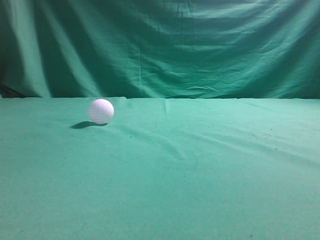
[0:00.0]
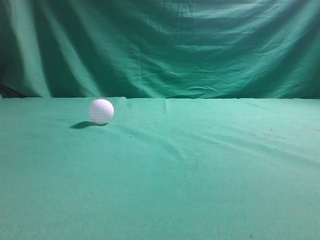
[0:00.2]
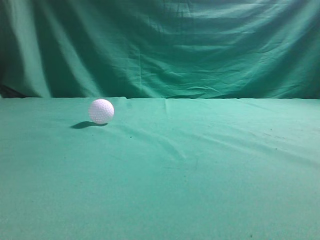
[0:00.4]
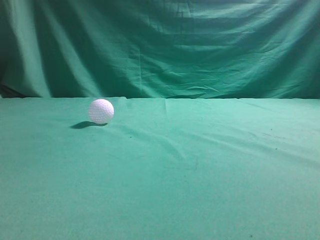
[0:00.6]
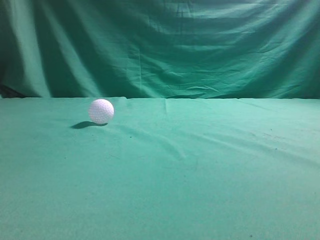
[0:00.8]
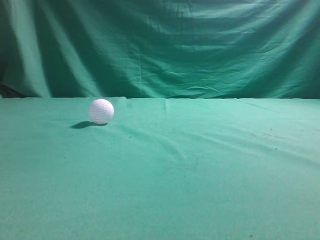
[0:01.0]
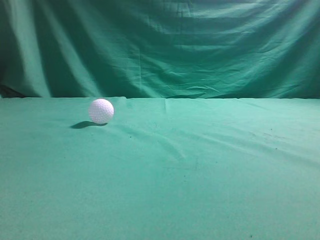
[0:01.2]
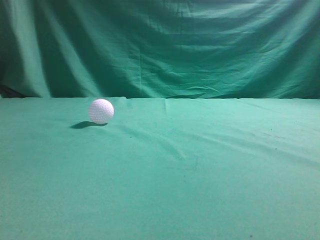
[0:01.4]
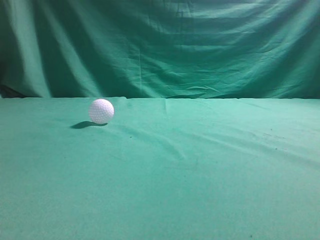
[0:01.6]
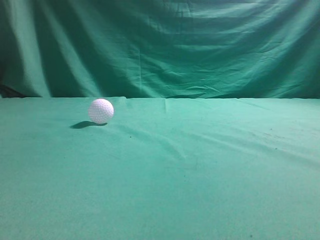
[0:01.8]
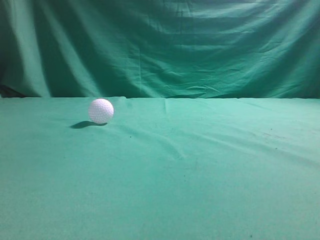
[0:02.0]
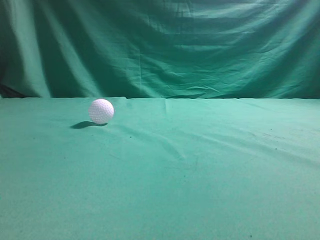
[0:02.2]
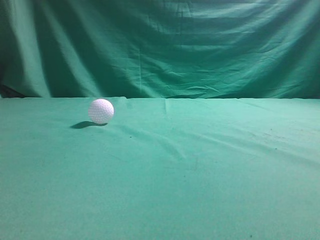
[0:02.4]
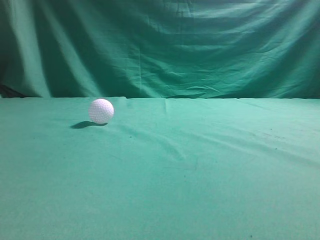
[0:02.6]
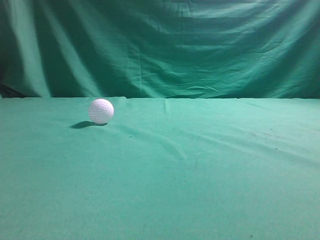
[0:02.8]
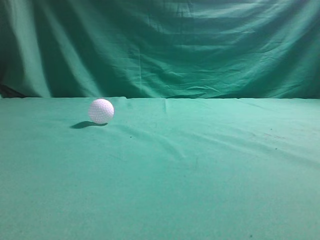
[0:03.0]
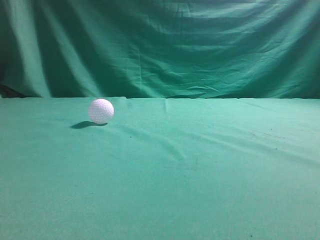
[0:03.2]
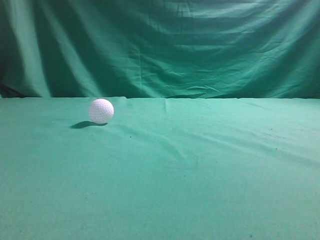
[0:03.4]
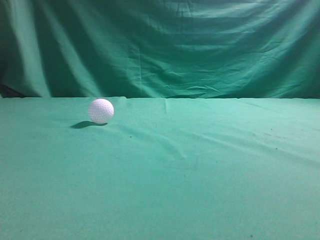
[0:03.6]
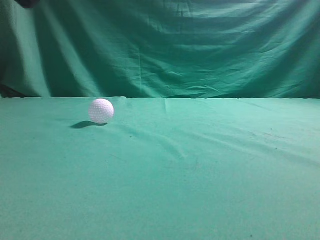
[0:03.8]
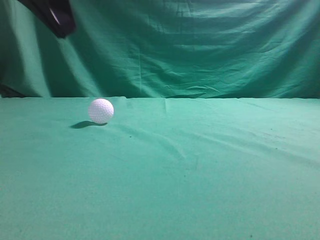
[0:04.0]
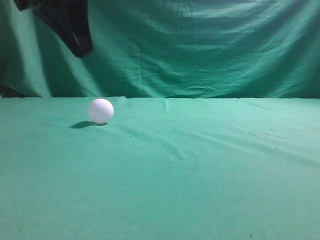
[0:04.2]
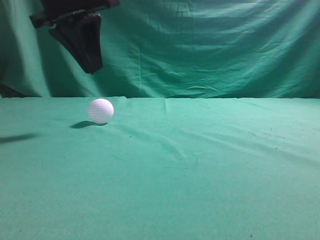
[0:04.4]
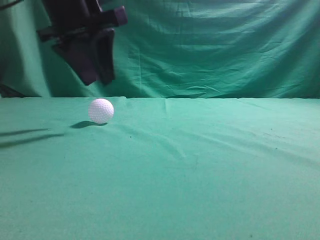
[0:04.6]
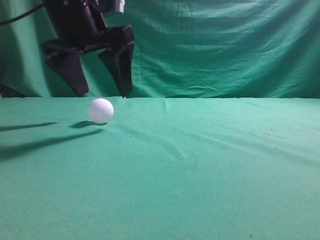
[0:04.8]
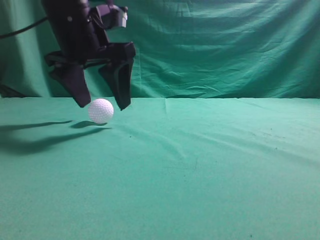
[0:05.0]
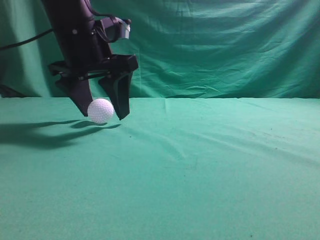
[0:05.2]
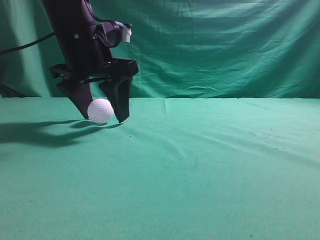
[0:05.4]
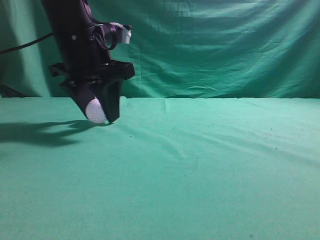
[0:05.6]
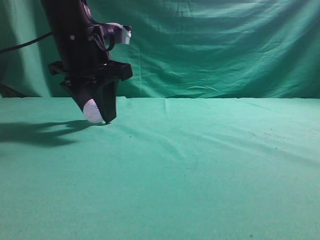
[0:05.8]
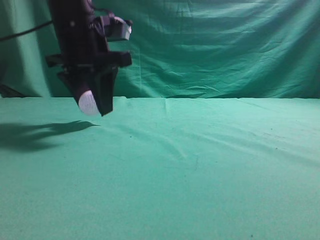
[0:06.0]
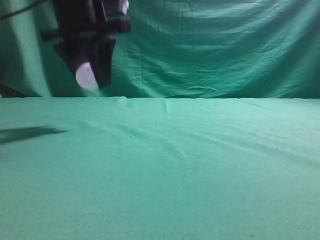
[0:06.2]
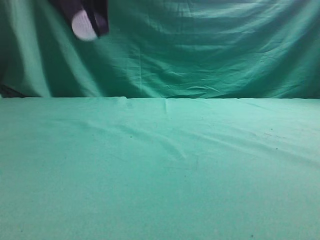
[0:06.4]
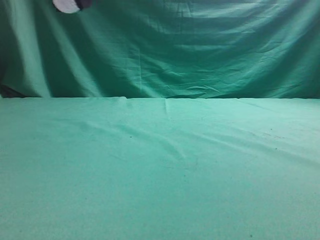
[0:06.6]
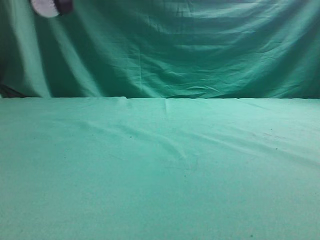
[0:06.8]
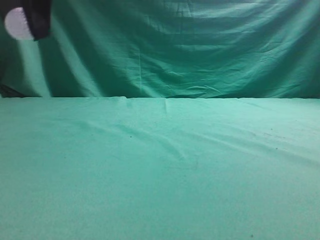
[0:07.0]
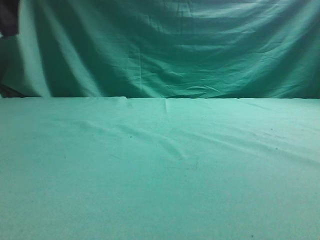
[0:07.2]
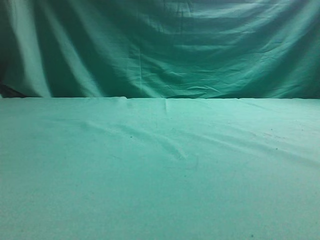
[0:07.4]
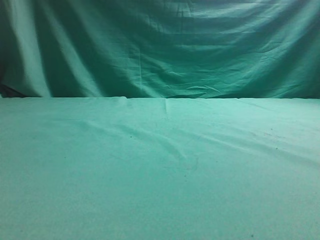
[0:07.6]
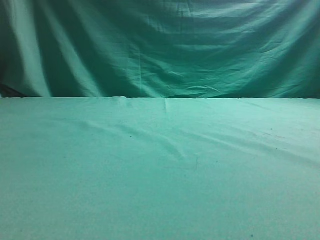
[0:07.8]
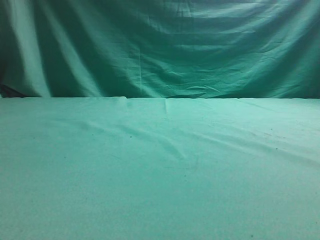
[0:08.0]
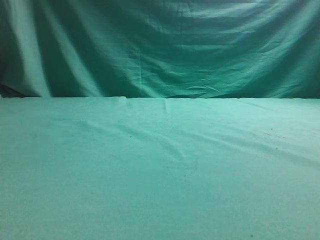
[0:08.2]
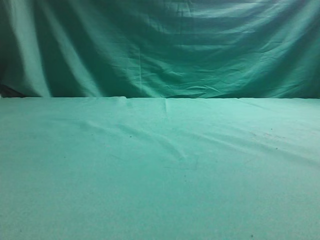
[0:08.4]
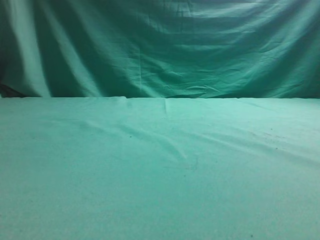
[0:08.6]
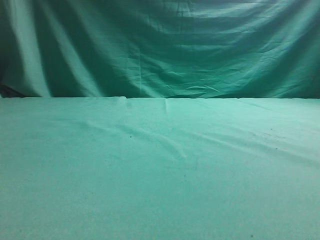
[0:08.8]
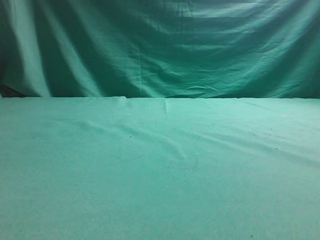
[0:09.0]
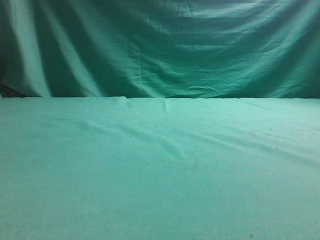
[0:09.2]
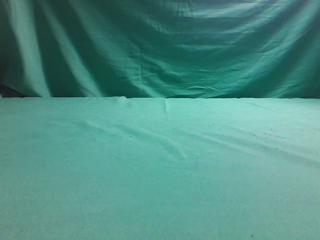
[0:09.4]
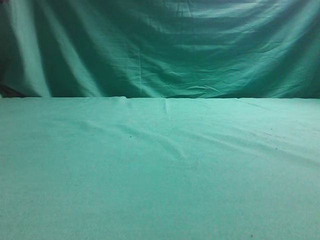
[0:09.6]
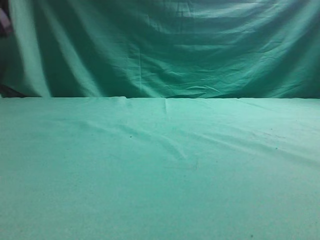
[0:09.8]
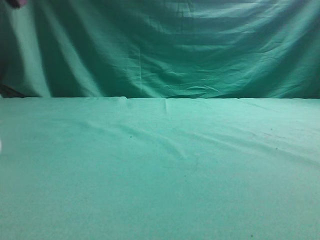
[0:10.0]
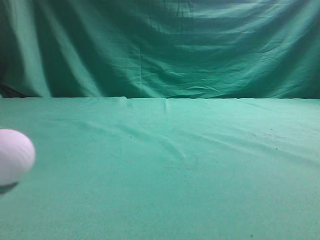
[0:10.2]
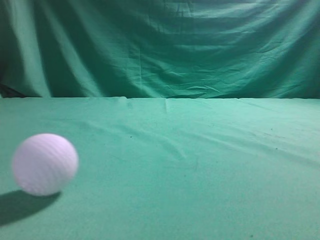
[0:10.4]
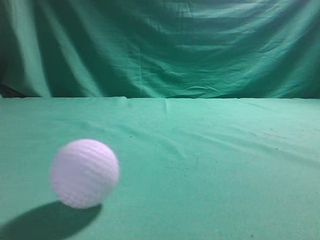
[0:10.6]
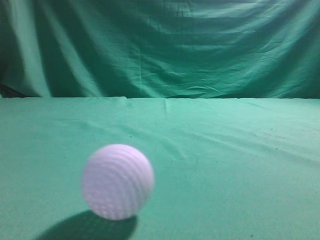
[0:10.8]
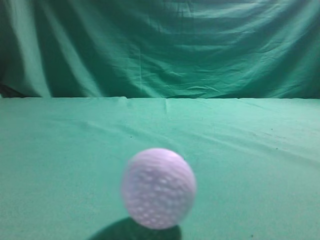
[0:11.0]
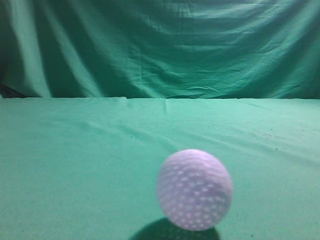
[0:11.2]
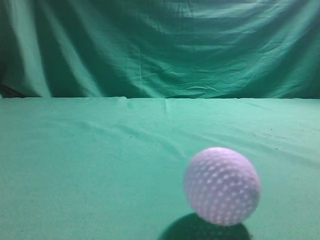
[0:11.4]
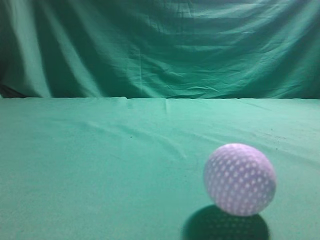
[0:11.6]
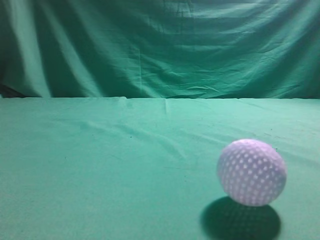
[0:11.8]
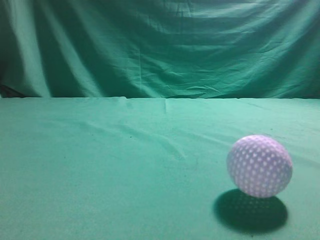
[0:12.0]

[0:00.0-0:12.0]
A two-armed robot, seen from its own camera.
Task of the whole recording: pick up the ball and place it on the plate, then pick up the ball from the plate and put it in the center of the table.
Step, 0:00.0 to 0:06.0: Grab the spherical object with your left arm.
Step, 0:06.2 to 0:09.4: Place the sphere on the white object.
0:03.0 to 0:04.4: The left gripper goes about 30 cm forward and to the right.
0:04.4 to 0:06.0: The left gripper shifts some 5 cm downward, and opens its fingers.
0:06.0 to 0:07.6: The left gripper goes some 20 cm to the left and upward.
0:09.0 to 0:10.4: The left gripper moves upward and to the right, some 25 cm, and closes its fingers.
0:10.4 to 0:12.0: The left gripper travels backward and downward by about 25 cm. Meanwhile the right gripper travels upward by roughly 10 cm.

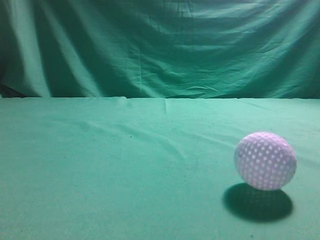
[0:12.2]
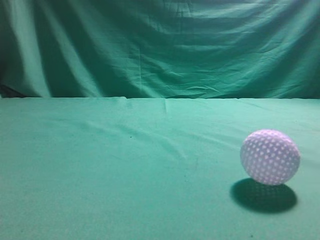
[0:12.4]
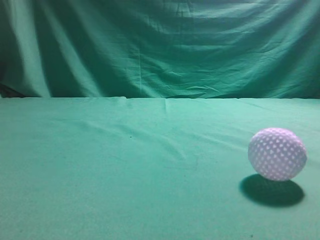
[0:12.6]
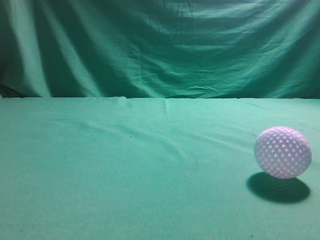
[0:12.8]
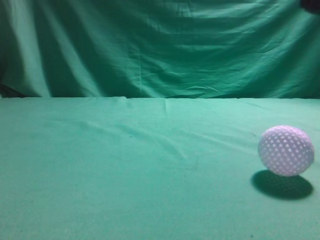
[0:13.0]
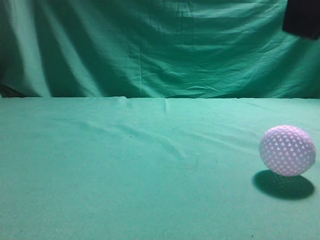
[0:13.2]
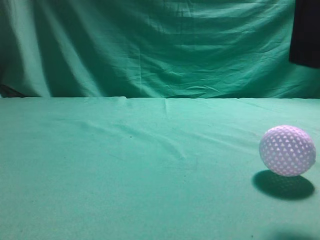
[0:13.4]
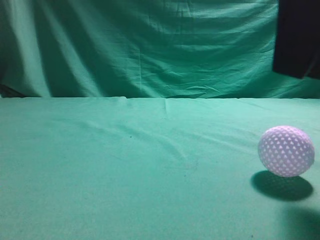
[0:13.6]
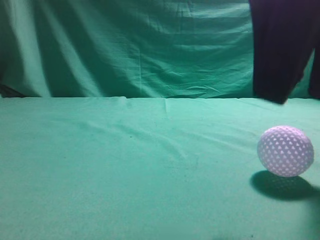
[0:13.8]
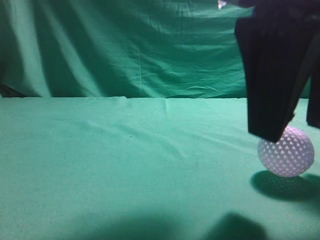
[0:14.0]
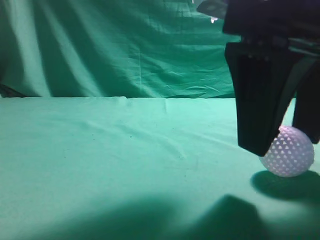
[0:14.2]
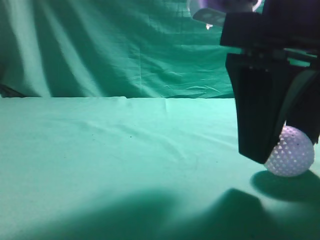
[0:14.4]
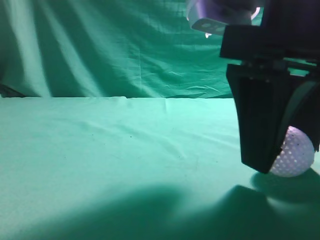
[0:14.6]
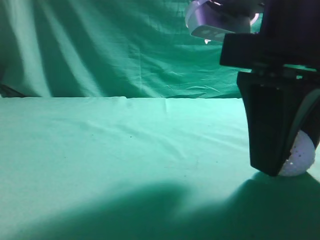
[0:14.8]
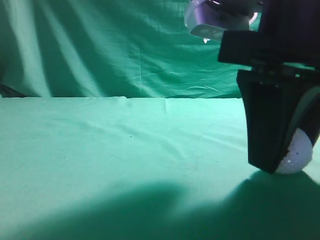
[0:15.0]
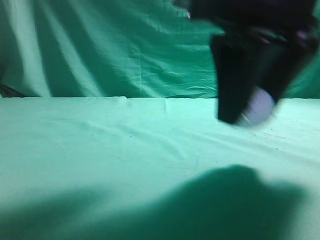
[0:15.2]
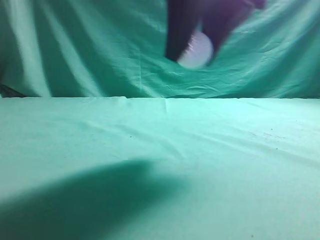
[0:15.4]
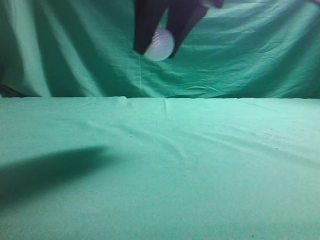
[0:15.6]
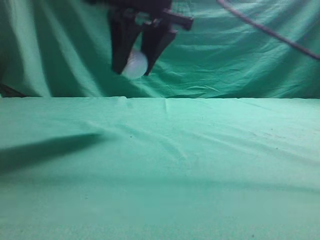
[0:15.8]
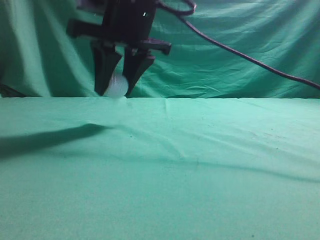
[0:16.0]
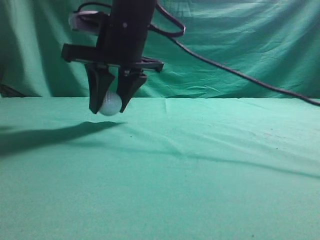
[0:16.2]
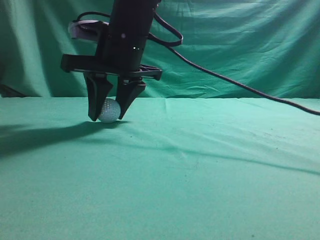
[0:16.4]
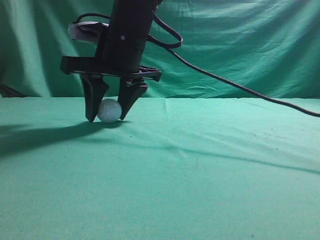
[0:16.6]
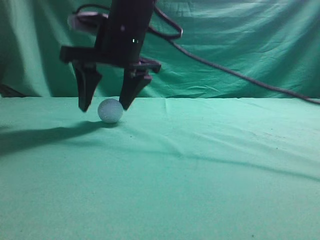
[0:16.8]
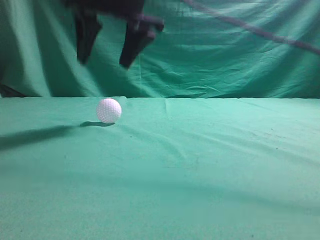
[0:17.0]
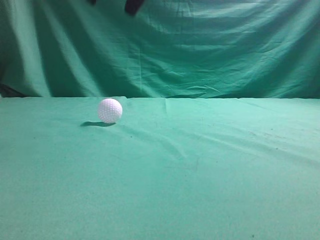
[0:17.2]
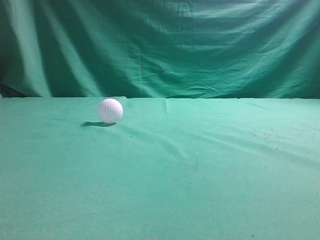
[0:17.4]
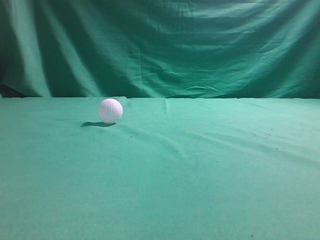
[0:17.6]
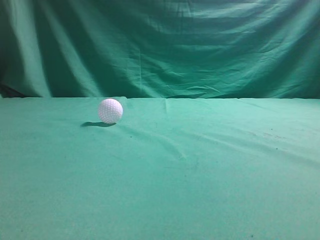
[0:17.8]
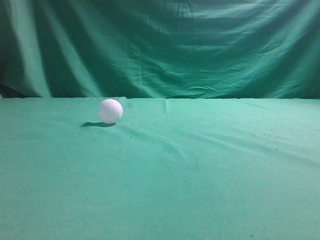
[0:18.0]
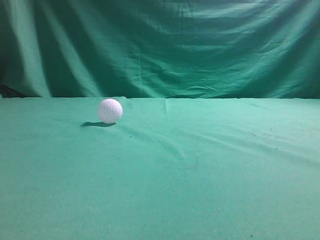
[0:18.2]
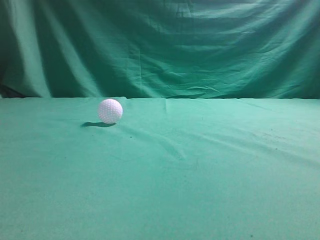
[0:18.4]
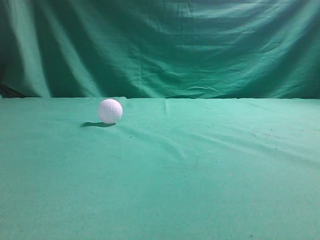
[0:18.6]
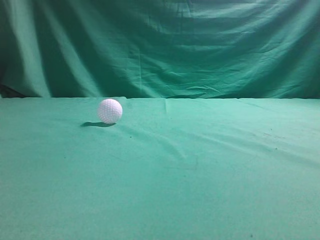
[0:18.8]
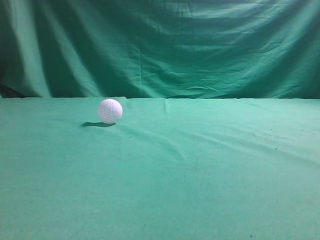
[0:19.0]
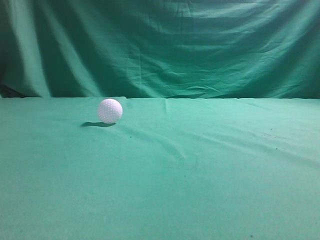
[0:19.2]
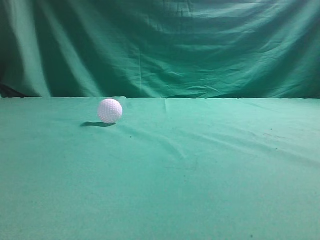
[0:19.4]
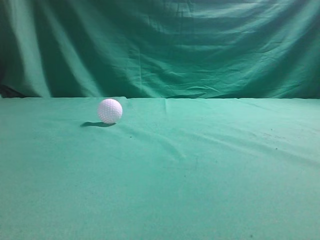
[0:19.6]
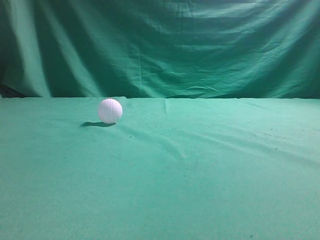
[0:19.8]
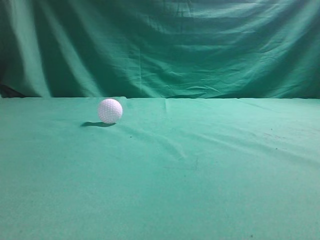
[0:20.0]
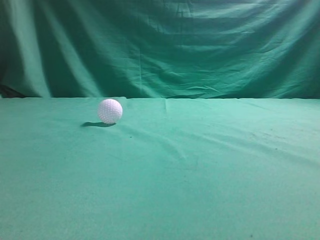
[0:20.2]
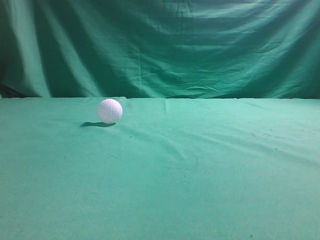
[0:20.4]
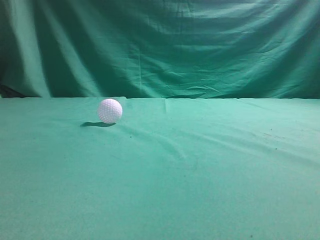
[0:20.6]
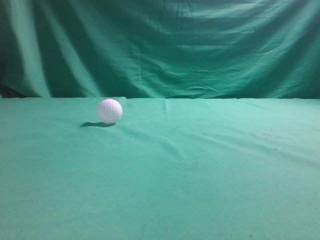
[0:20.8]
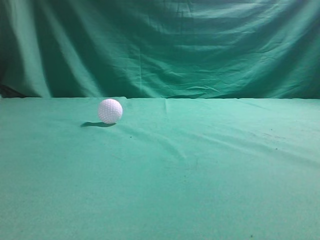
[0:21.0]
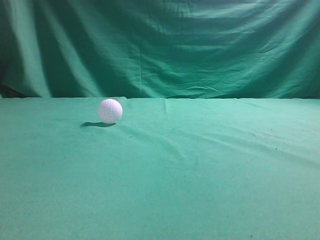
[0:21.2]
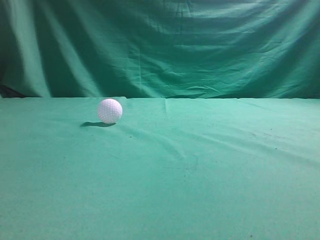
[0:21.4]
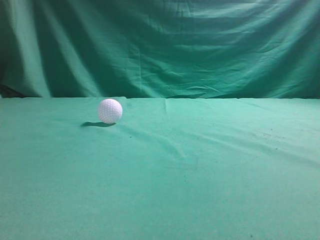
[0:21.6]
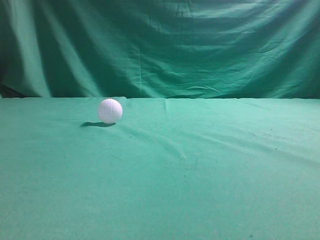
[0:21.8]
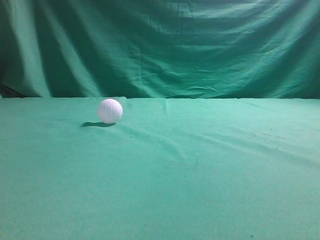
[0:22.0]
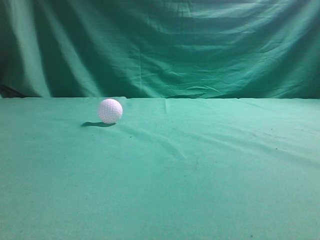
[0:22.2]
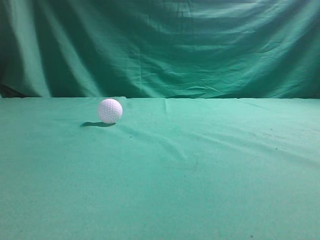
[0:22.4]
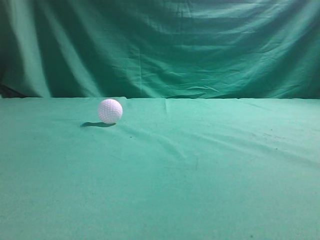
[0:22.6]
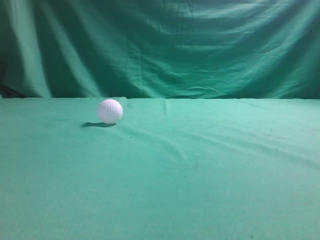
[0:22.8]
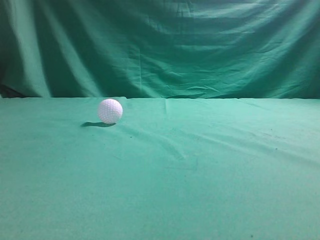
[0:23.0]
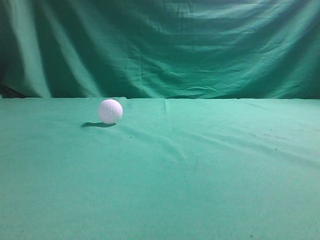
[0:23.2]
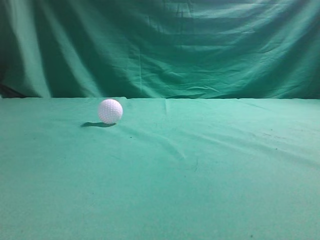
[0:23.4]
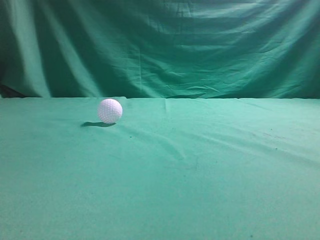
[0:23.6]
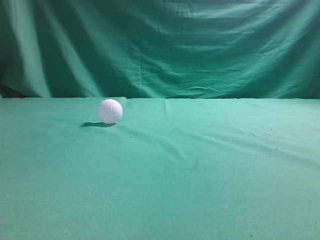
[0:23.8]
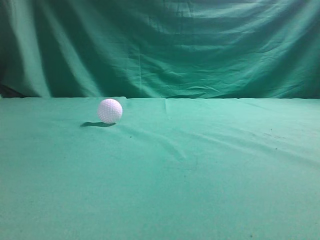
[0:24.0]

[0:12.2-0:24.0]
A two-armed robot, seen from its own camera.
Task of the whole recording: pick up the ball and place it on the plate, then pick up the ball from the plate and put it in the center of the table.
Step, 0:12.2 to 0:15.0: Grab the rolling spherical object.
Step, 0:15.2 to 0:16.8: Put the picked-up object on the table.
0:12.2 to 0:13.6: The right gripper is displaced to the left, forward and downward by about 15 cm, and opens its fingers.
0:13.6 to 0:15.2: The right gripper ends up about 5 cm from where it was, and opens and closes again.
0:15.2 to 0:16.6: The right gripper is displaced forward and to the left by roughly 20 cm.
0:16.6 to 0:18.2: The right gripper is displaced upward, backward and to the right by about 50 cm, and closes up.
